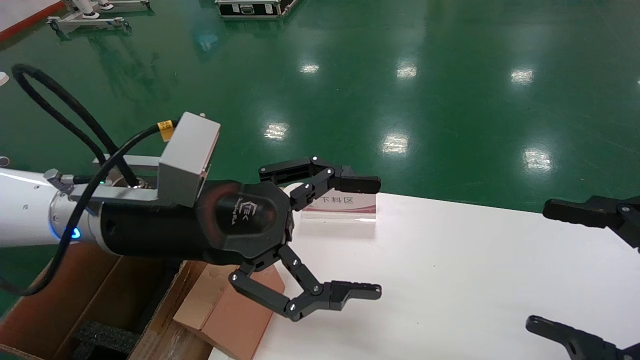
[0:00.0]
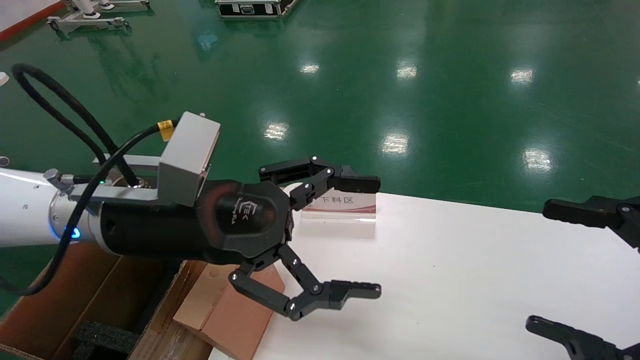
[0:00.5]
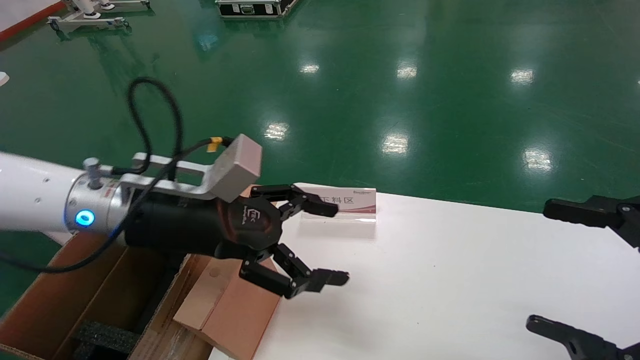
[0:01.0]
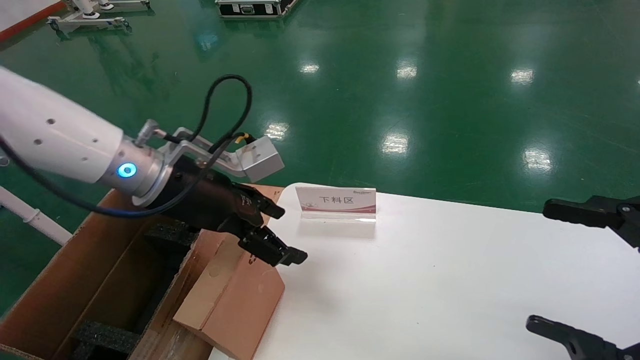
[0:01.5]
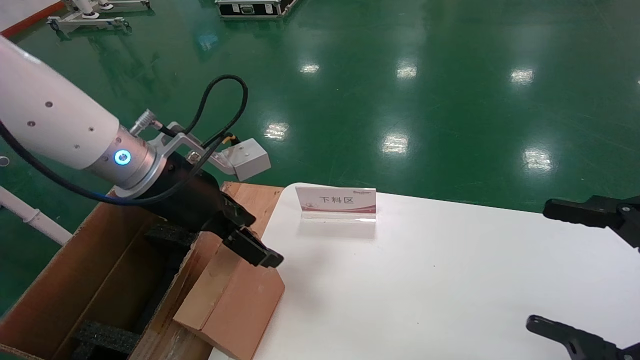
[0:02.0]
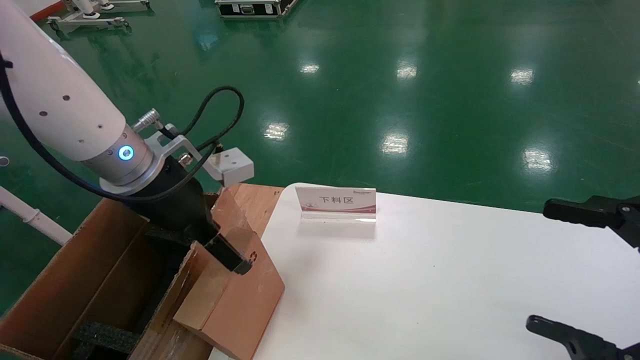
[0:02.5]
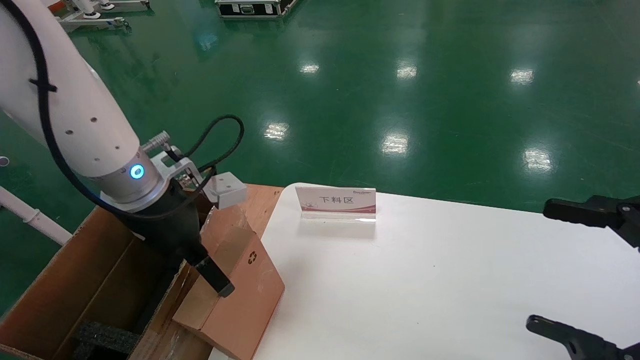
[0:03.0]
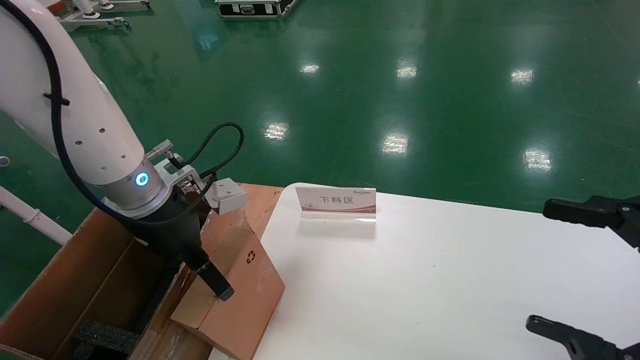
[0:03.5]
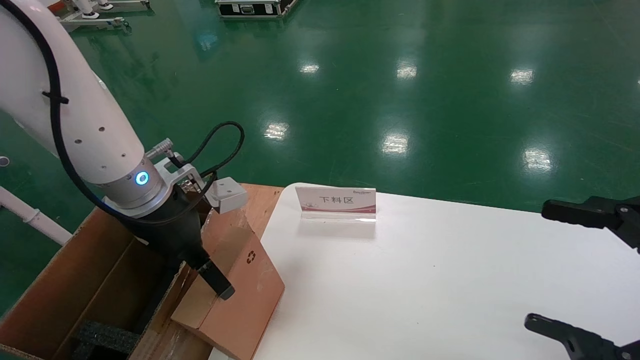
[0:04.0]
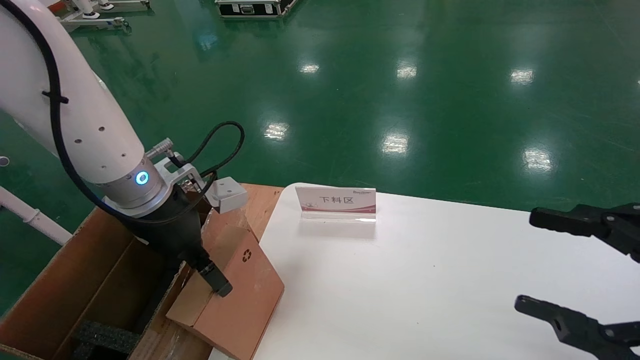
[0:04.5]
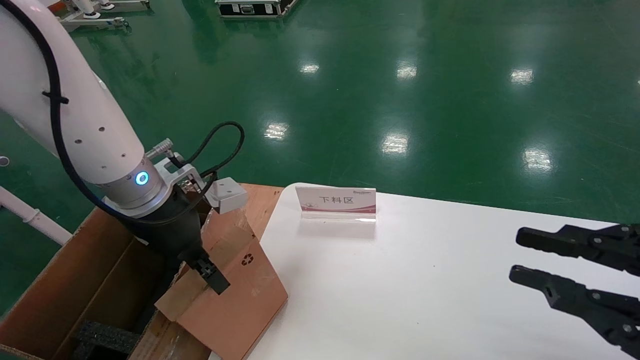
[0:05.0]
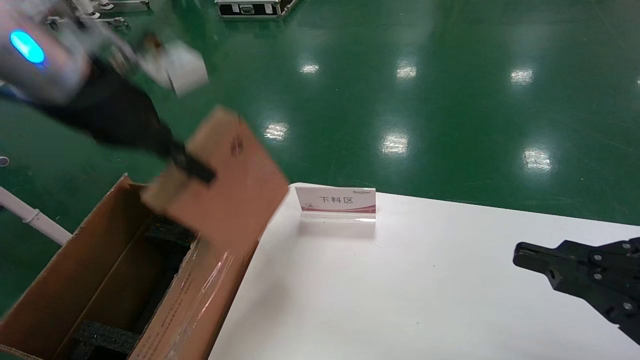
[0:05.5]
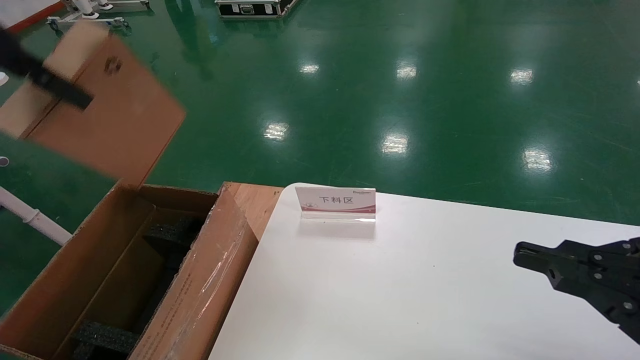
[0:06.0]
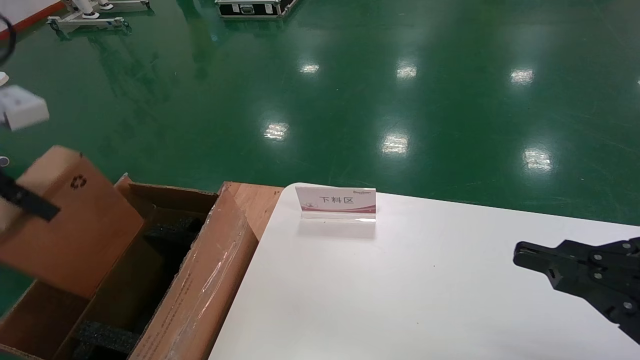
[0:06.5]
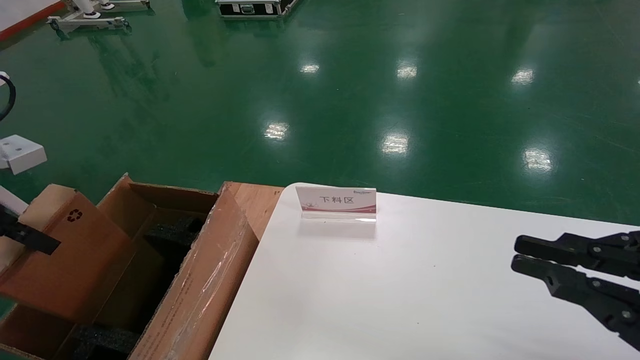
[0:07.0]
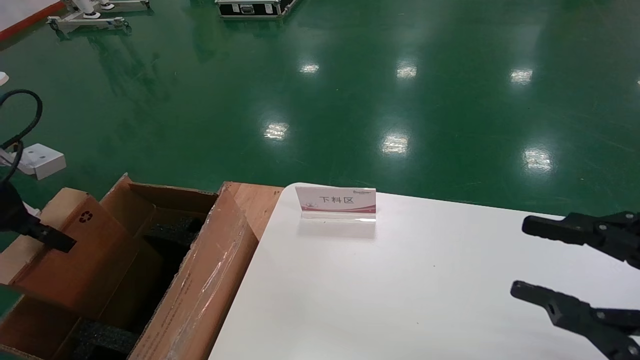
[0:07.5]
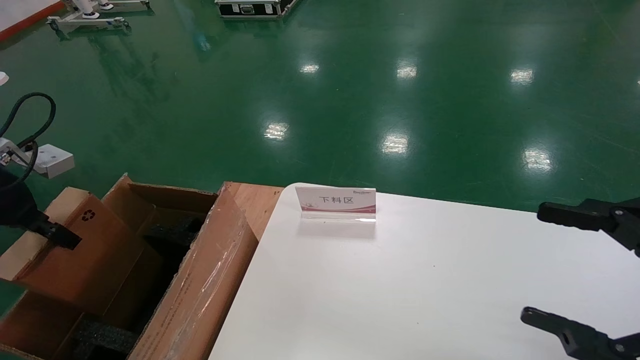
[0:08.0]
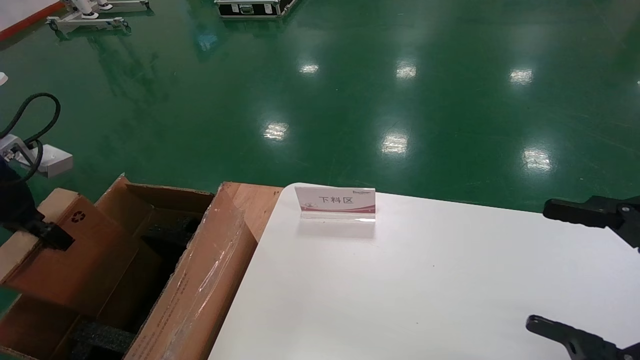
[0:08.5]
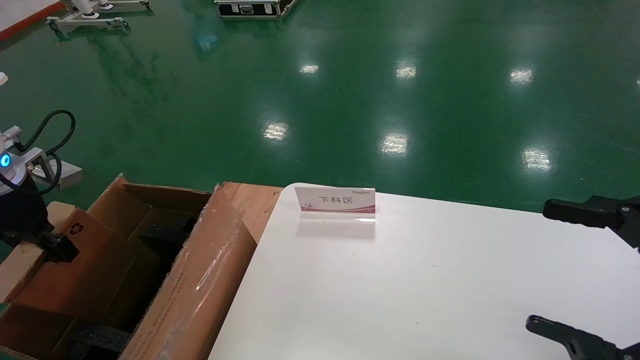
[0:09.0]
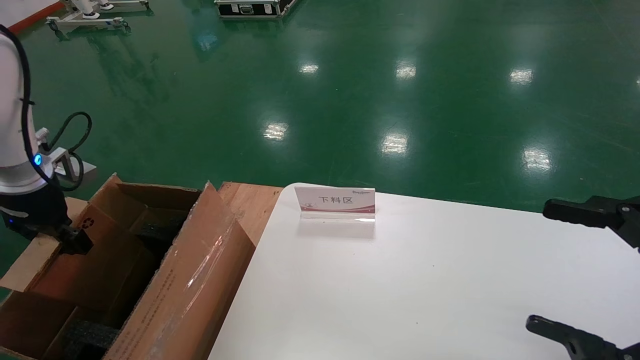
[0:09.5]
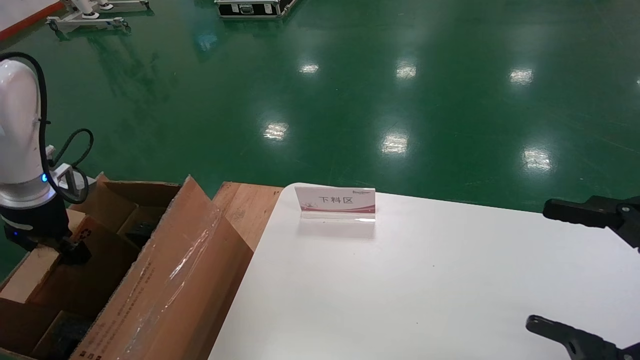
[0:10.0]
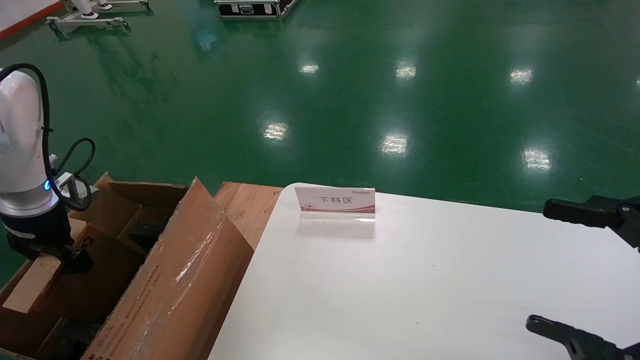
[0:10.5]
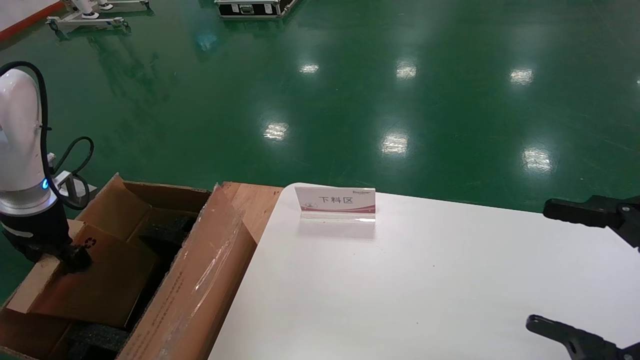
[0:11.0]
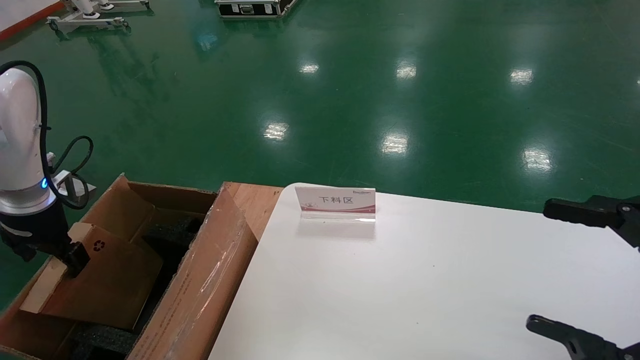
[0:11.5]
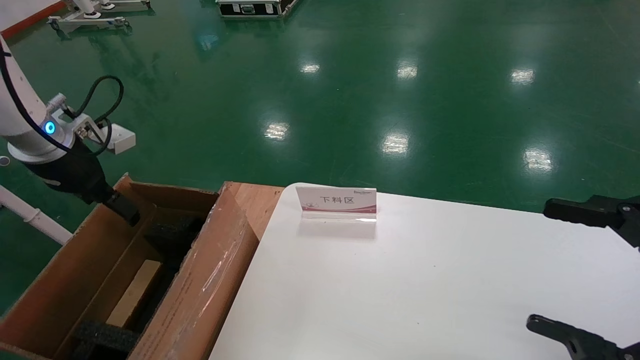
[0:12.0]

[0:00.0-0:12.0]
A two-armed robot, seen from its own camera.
Task of the whole recording: pick up the small cardboard box and load it into the large cardboard box.
Step, 0:01.0 to 0:05.5: Pick up the mouse and power cord box.
0:00.0 to 0:02.0: The left gripper is displaced forward by roughly 5 cm.
0:04.0 to 0:06.0: The right gripper closes its fingers. The left gripper travels upward, to the left and backward by roughly 25 cm, and closes its fingers.
0:06.0 to 0:08.0: The right gripper opens its fingers; the left gripper is displaced downward and to the left by some 20 cm.
0:08.0 to 0:10.0: The left gripper shifts about 10 cm forward and downward.
0:10.0 to 0:12.0: The left gripper goes roughly 10 cm upward and to the right, and opens up.

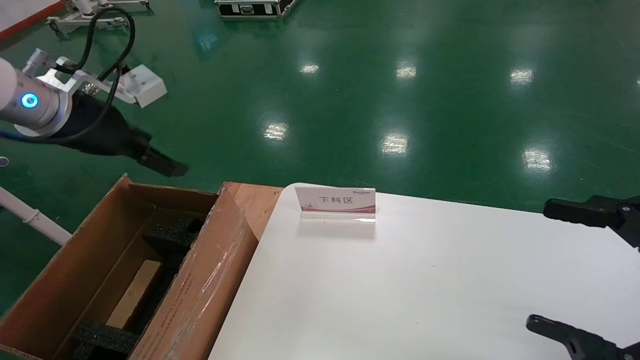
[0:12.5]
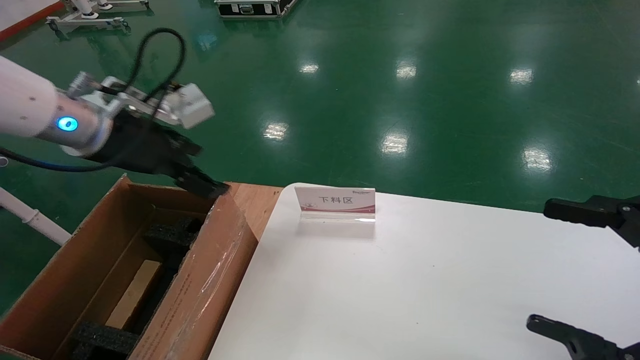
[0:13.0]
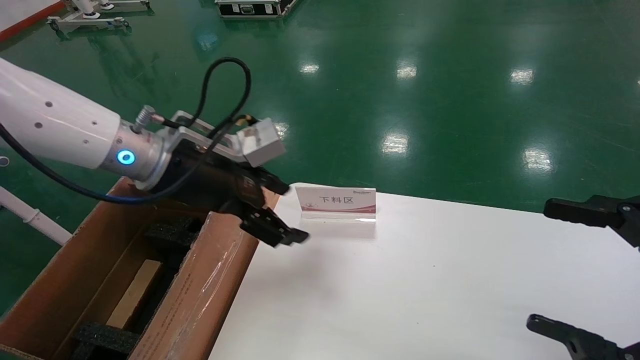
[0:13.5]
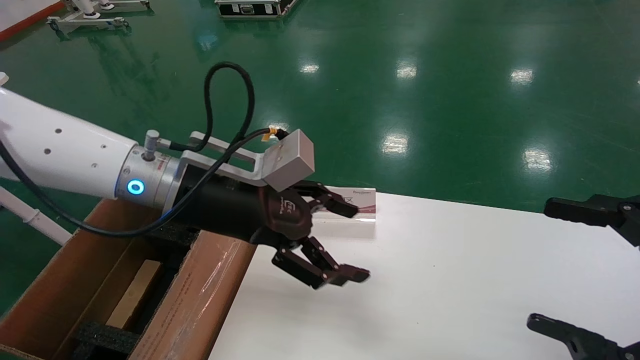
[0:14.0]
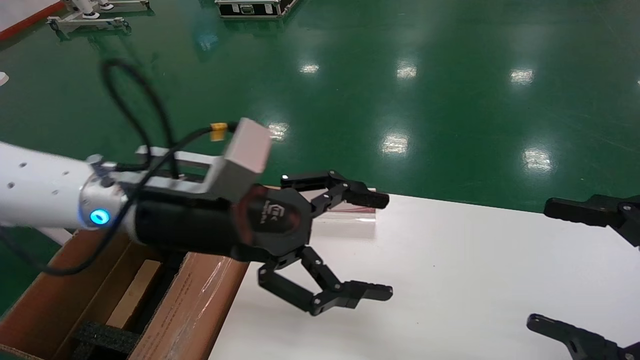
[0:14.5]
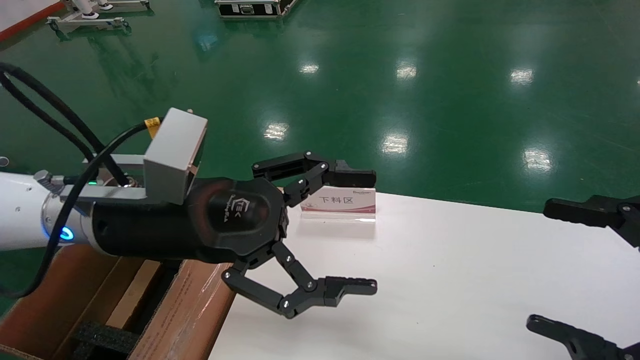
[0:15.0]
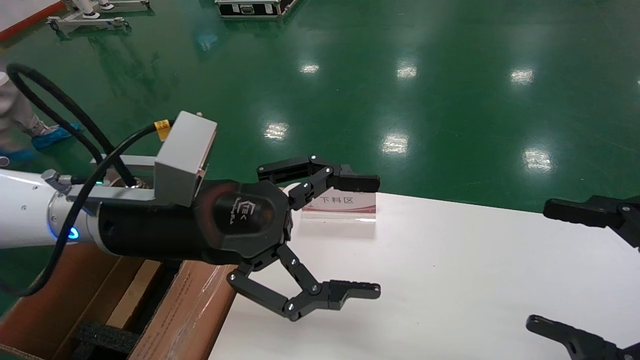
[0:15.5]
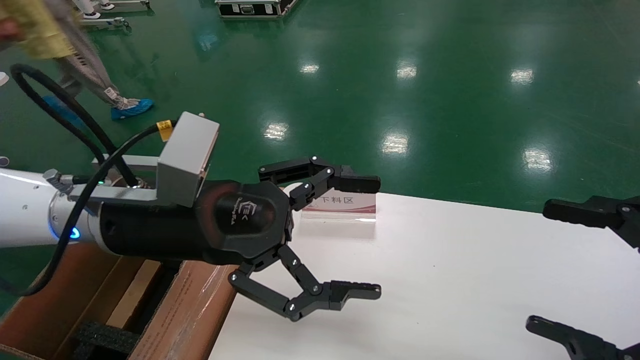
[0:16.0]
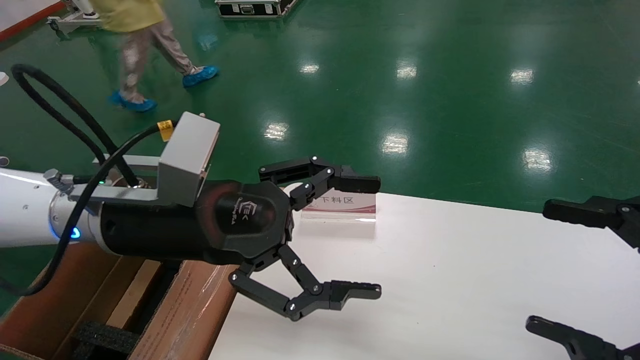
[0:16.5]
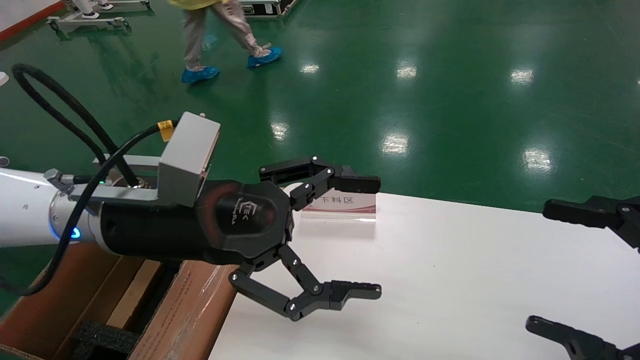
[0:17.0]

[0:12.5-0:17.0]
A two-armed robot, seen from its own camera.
Task of the whole recording: pick up the small cardboard box and load it into the large cardboard box.
0:12.5 to 0:14.5: The left gripper goes approximately 20 cm to the right.
0:14.5 to 0:17.0: The grippers stay close to where they were, moving slightly.

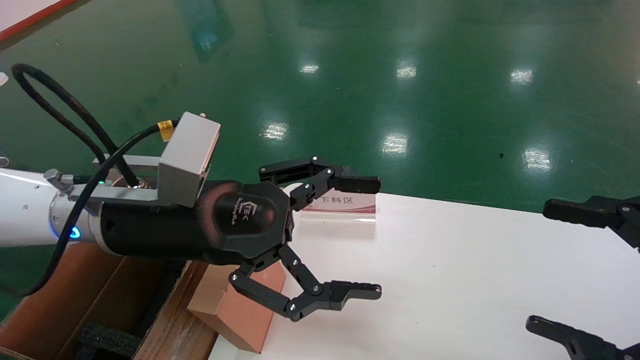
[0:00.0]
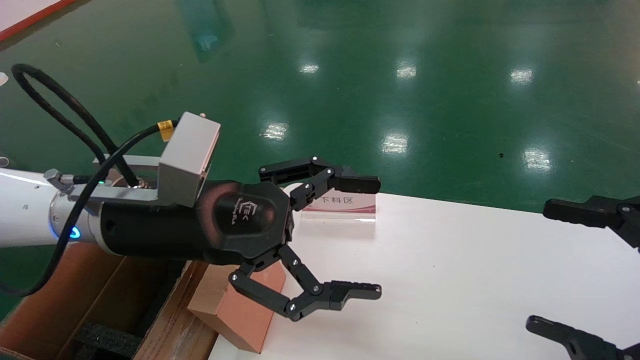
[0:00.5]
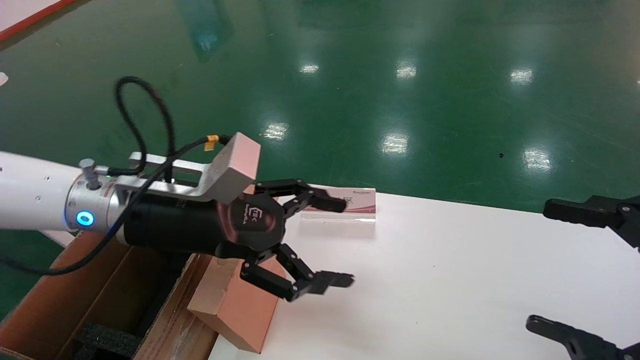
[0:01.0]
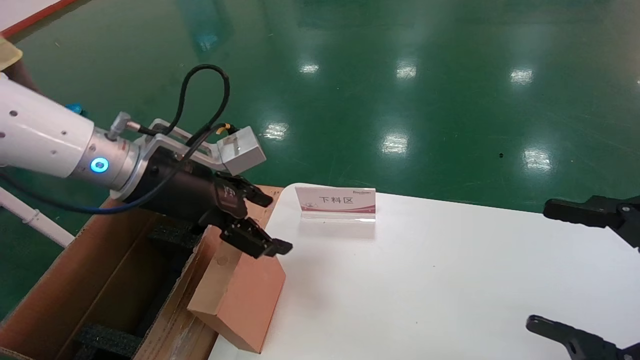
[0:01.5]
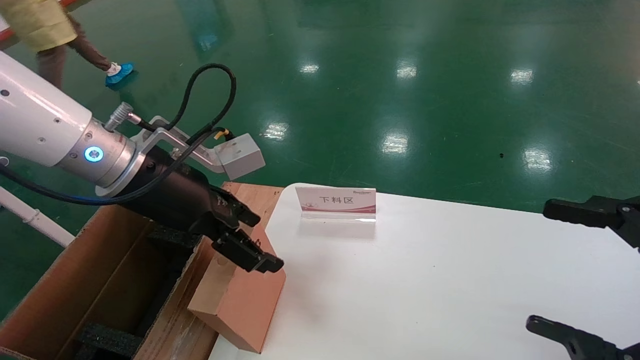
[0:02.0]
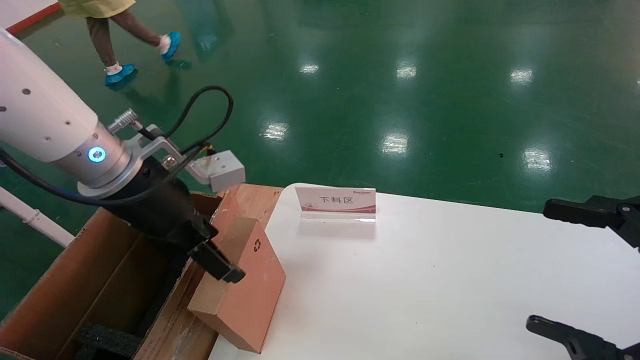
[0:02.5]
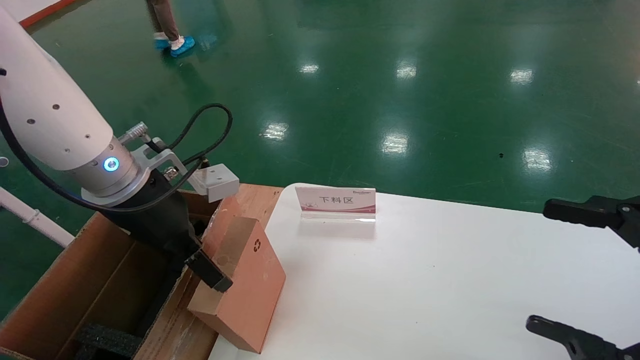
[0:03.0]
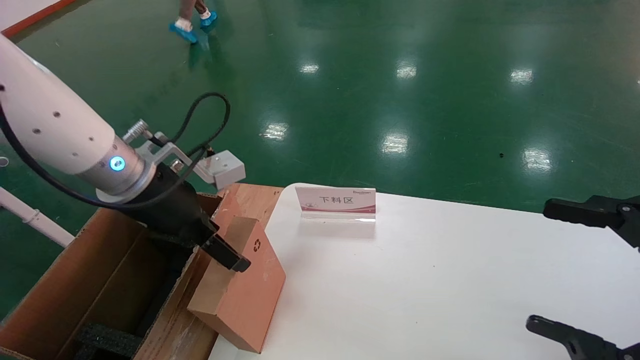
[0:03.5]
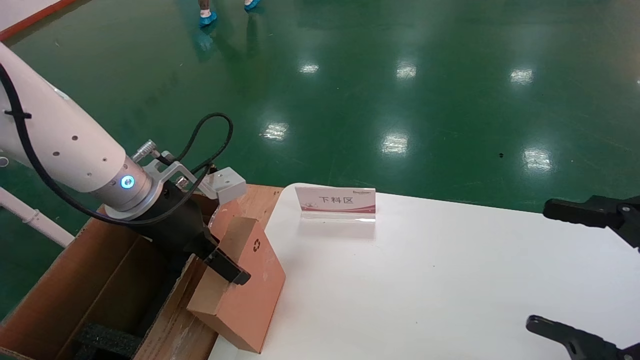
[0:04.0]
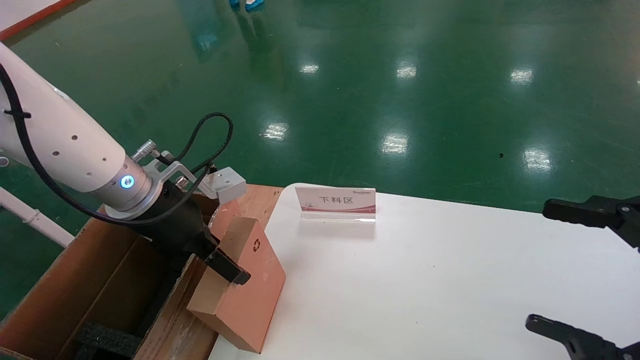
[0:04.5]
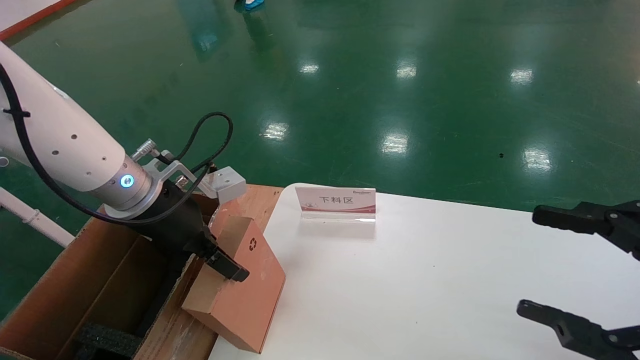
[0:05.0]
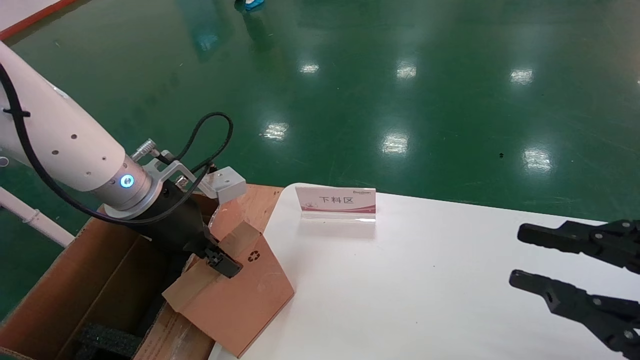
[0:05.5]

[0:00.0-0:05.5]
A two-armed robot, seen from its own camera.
Task of the whole recording: pick up the small cardboard box and load it into the large cardboard box.
0:00.0 to 0:02.0: The left gripper moves roughly 5 cm.
0:03.5 to 0:05.5: The right gripper closes its fingers. The left gripper closes its fingers.
